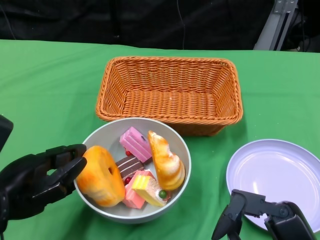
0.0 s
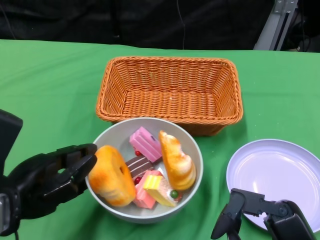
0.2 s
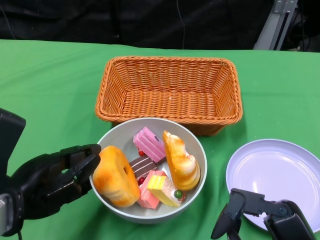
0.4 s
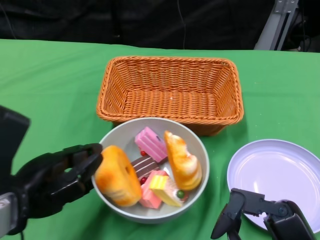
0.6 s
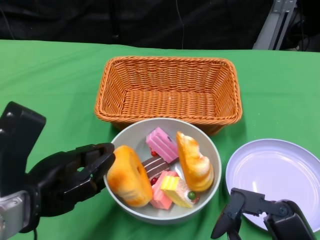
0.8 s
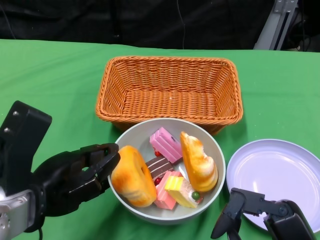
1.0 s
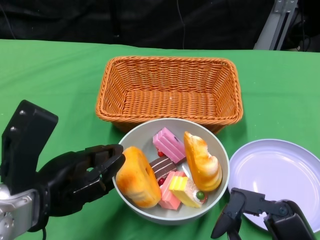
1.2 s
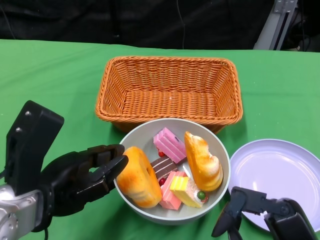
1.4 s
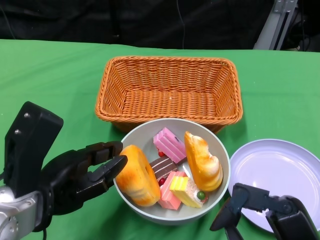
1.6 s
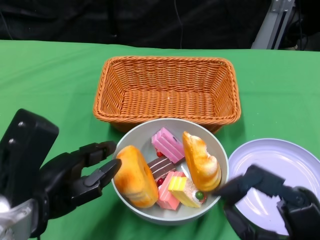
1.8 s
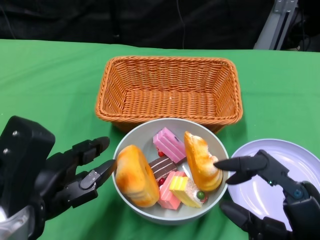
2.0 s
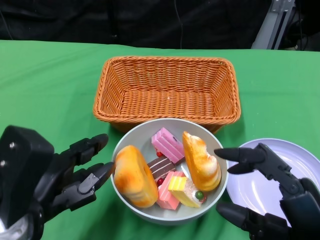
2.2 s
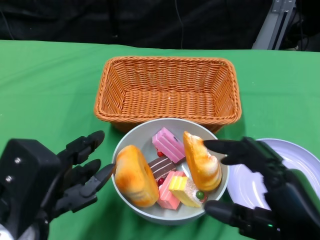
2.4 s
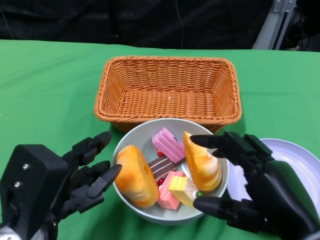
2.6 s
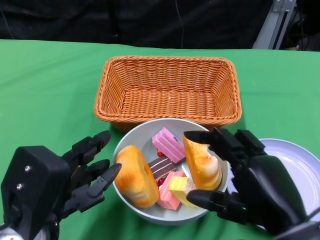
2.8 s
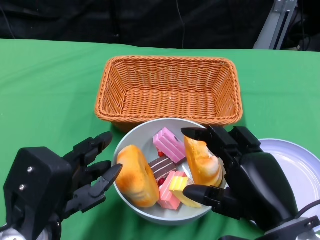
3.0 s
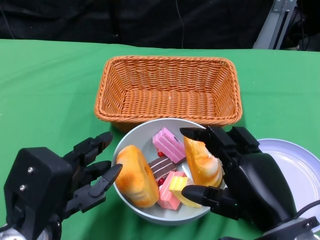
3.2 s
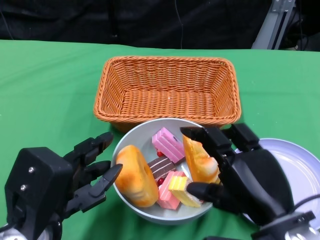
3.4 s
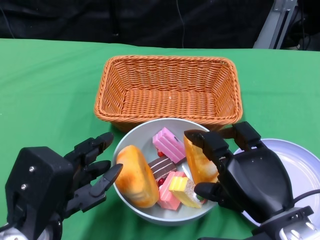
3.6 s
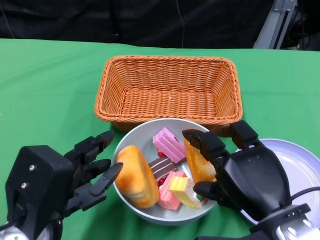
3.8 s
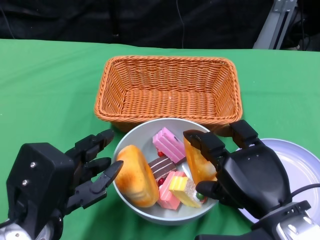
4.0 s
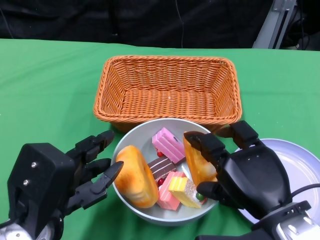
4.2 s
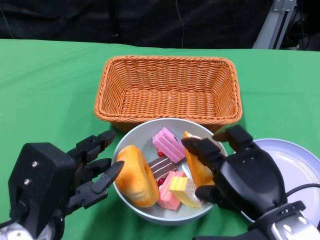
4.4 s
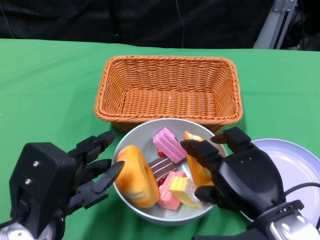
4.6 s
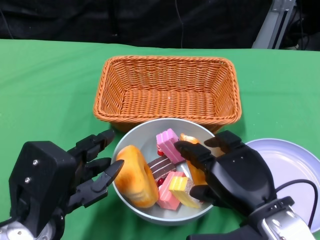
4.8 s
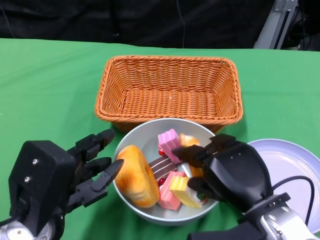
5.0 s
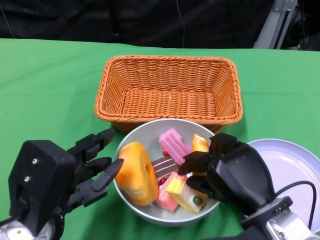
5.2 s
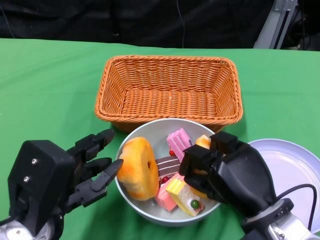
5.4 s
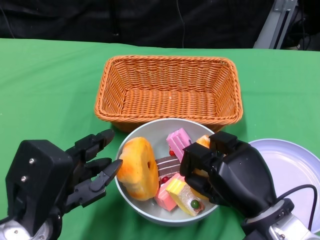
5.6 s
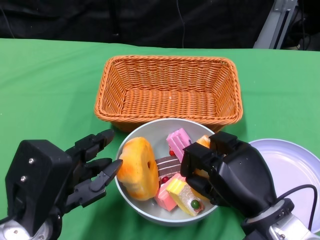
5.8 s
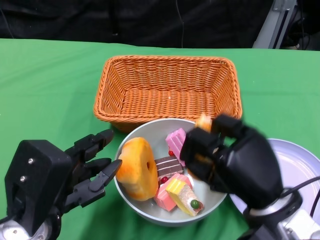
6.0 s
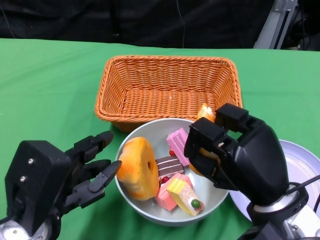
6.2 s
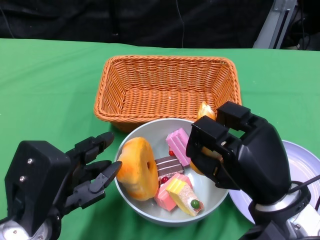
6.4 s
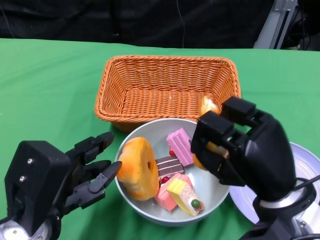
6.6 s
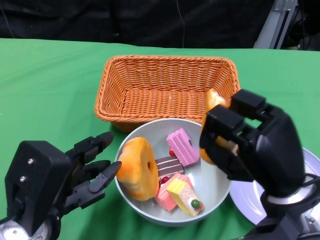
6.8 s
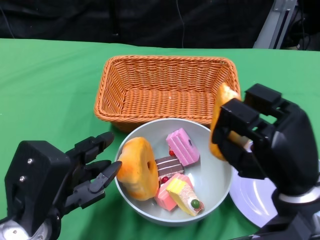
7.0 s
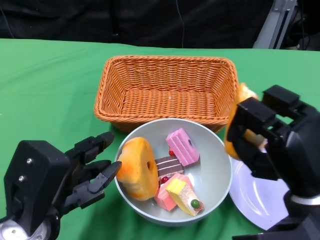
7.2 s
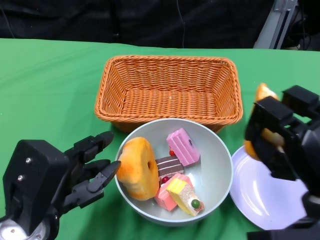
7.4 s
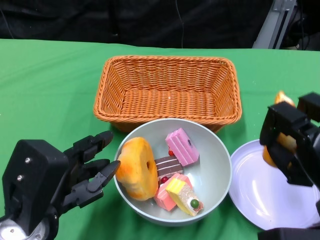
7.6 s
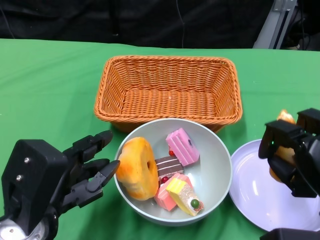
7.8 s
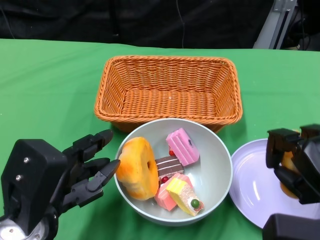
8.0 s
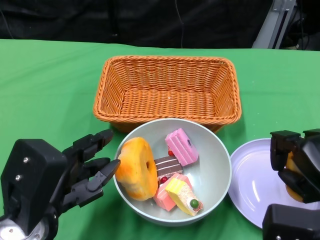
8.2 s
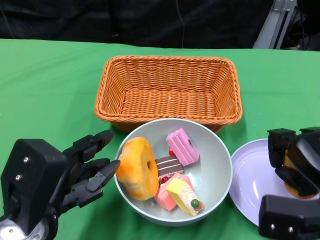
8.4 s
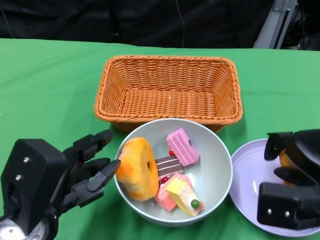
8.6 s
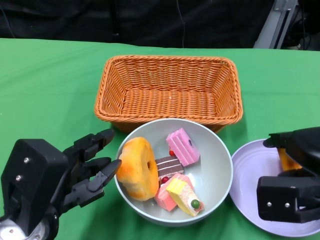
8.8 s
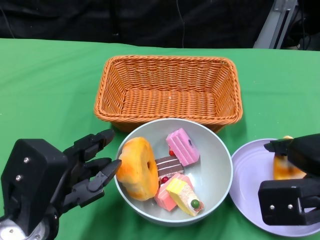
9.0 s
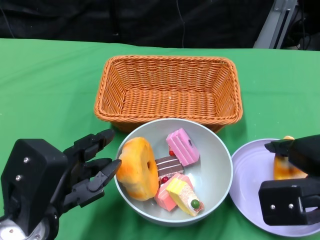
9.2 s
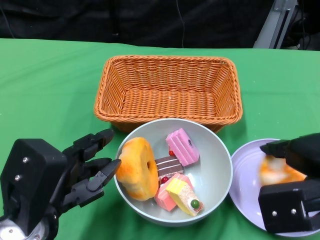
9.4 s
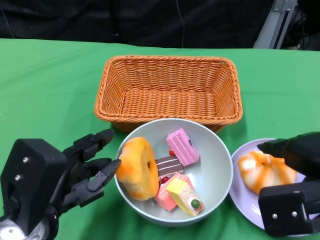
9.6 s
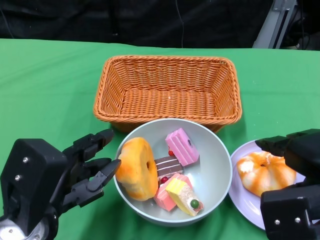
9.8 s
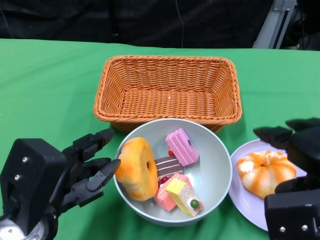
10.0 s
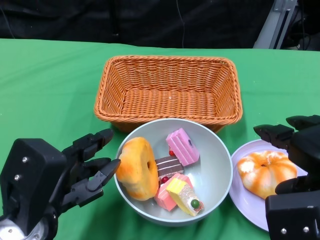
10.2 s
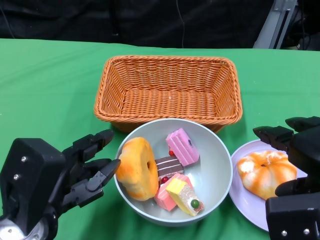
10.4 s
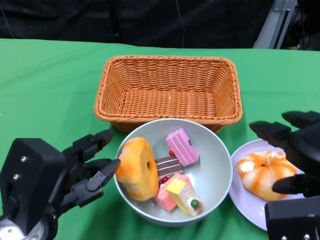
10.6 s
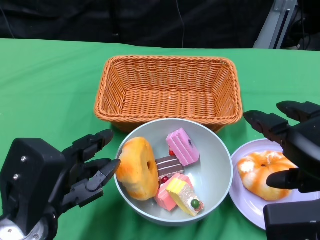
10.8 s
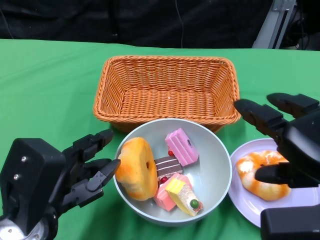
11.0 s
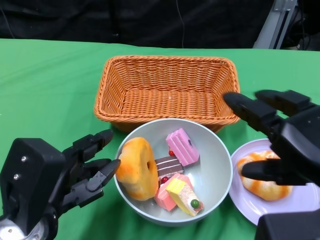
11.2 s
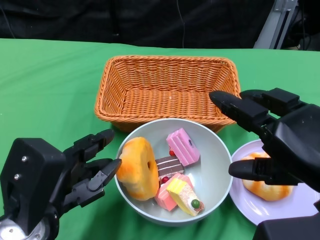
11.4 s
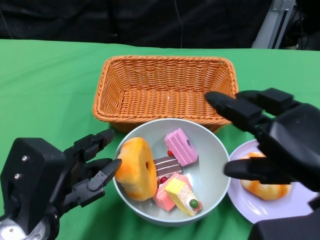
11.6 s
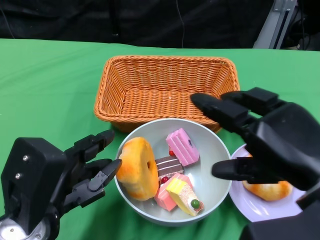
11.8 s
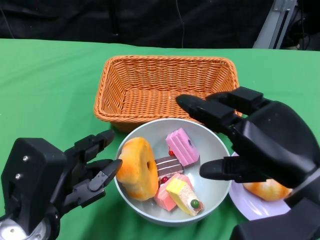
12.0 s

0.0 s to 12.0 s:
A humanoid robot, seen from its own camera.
Step, 0.0 to 2.4 s: Push the bowl to the center of the table using the left gripper.
Step, 2.6 to 11.0 s: Pick up the bread with the right gripper and place it on the plate.
0.0 to 1.6 s: The left hand shifts some 5 cm to the right.
1.6 to 3.0 s: The right hand shifts by roughly 5 cm.
6.0 to 7.6 s: The right hand moves to the right, some 10 cm.
9.0 to 10.4 s: The right hand ends up approximately 5 cm from where it was.
10.4 to 12.0 s: The right hand shifts about 5 cm to the left.

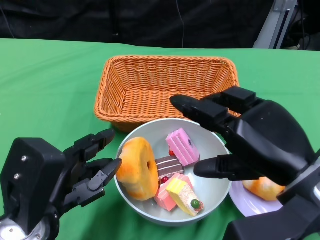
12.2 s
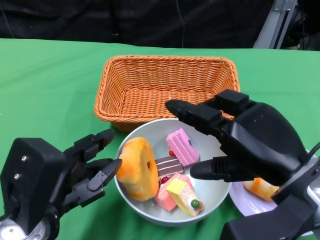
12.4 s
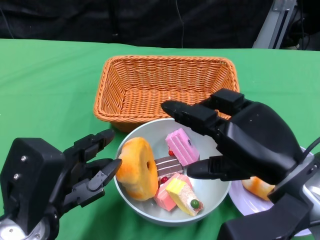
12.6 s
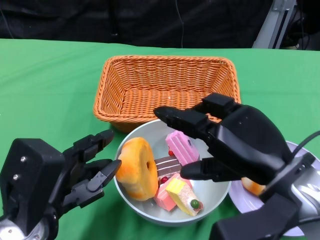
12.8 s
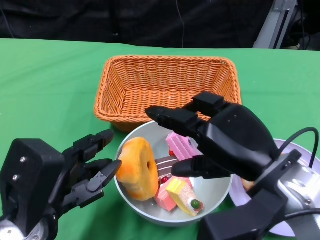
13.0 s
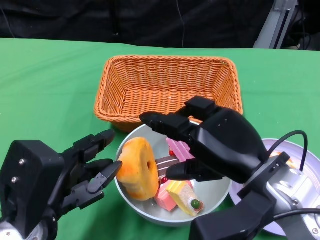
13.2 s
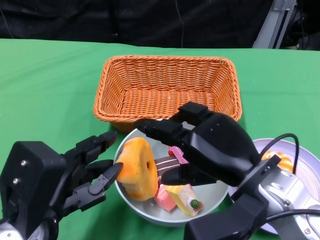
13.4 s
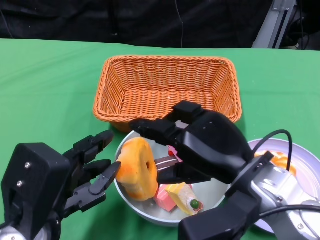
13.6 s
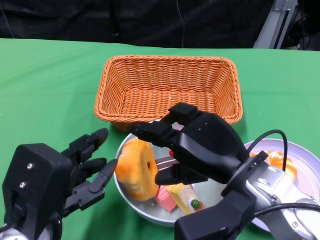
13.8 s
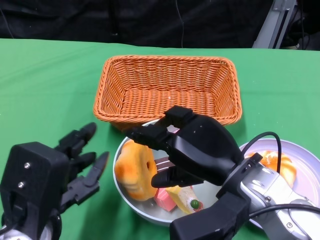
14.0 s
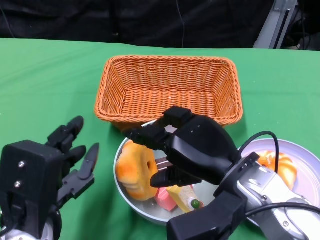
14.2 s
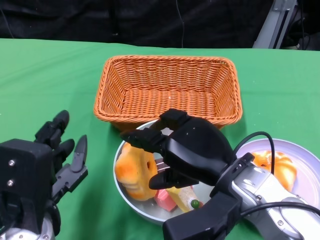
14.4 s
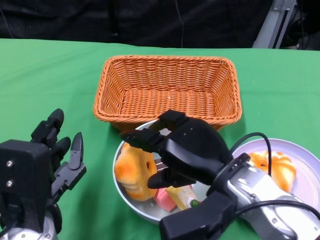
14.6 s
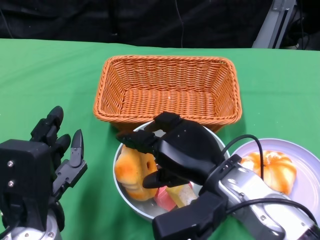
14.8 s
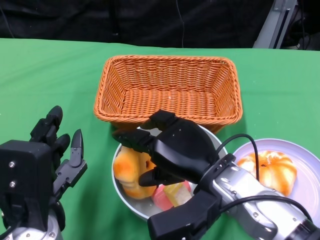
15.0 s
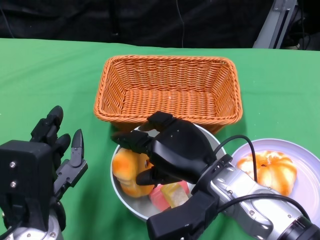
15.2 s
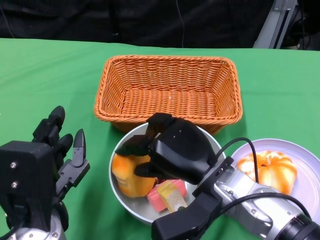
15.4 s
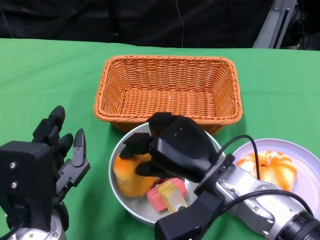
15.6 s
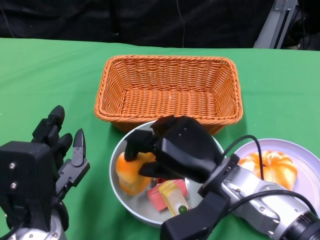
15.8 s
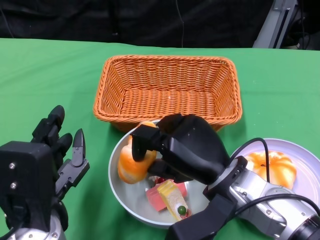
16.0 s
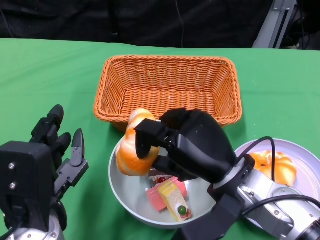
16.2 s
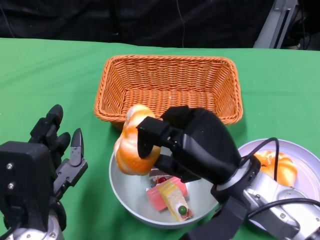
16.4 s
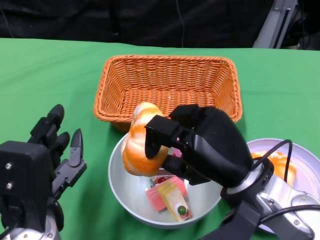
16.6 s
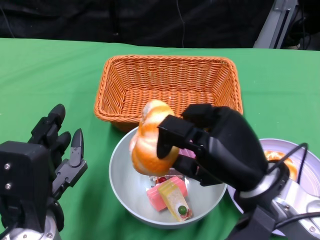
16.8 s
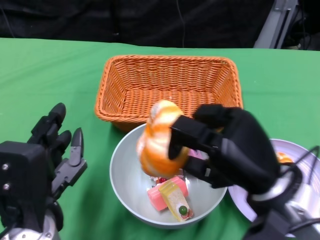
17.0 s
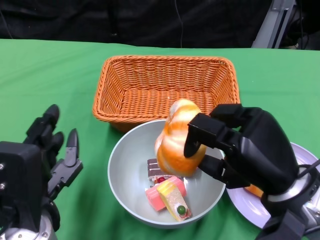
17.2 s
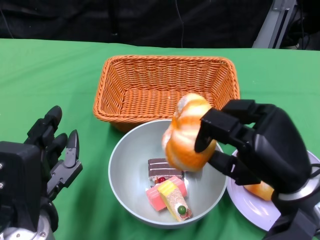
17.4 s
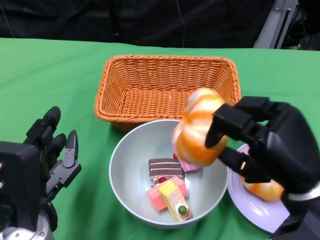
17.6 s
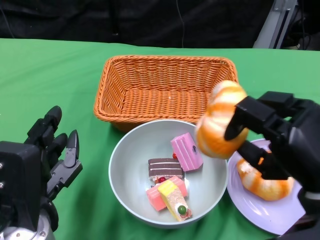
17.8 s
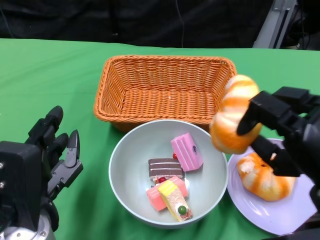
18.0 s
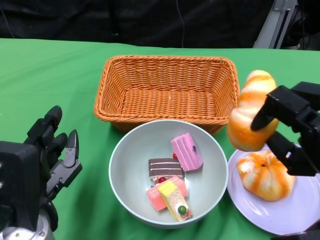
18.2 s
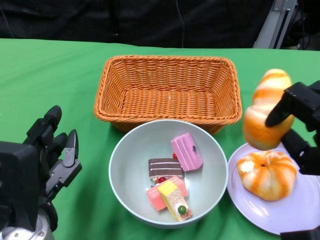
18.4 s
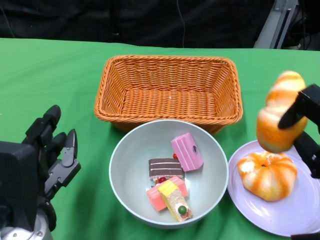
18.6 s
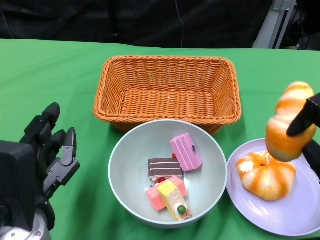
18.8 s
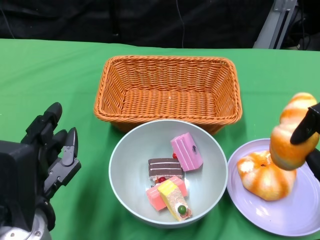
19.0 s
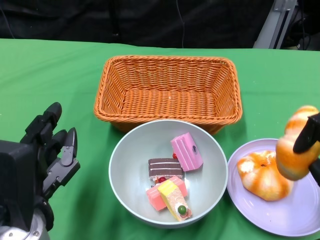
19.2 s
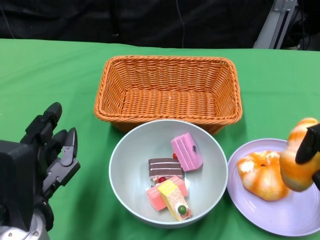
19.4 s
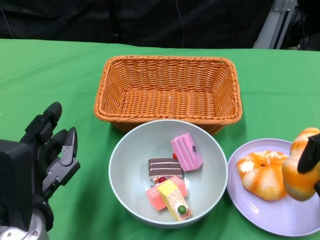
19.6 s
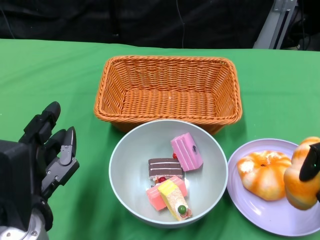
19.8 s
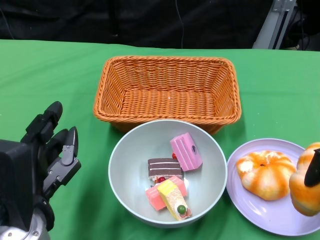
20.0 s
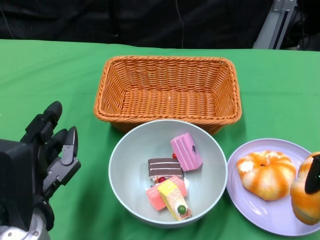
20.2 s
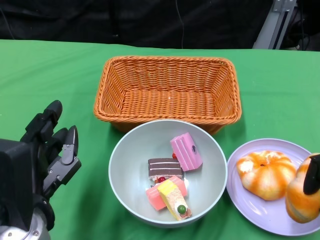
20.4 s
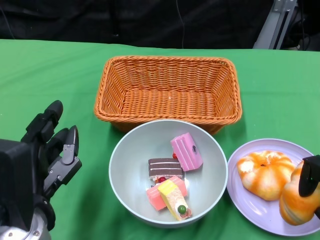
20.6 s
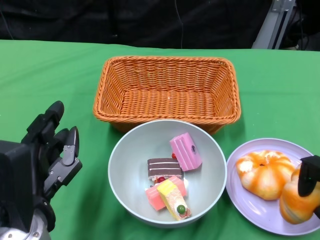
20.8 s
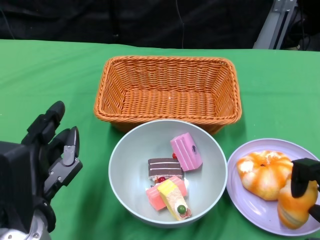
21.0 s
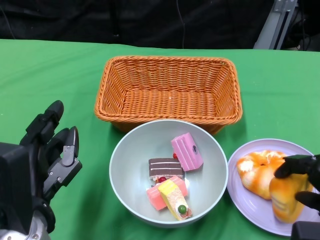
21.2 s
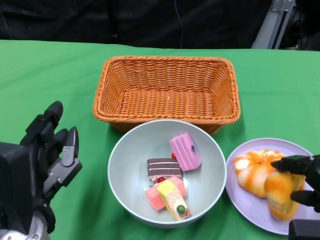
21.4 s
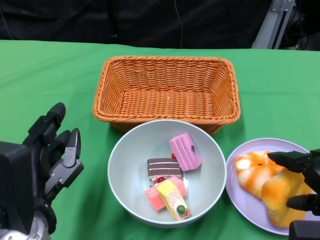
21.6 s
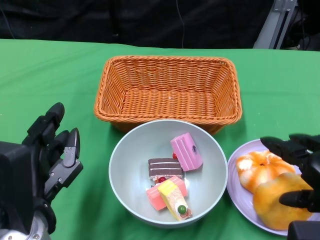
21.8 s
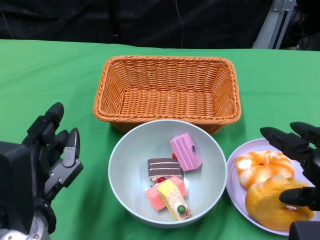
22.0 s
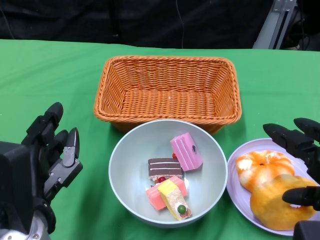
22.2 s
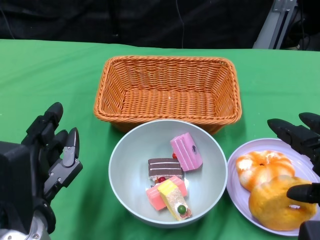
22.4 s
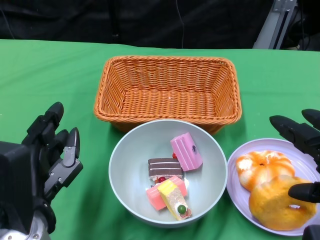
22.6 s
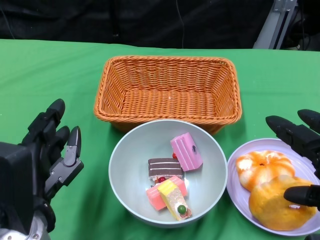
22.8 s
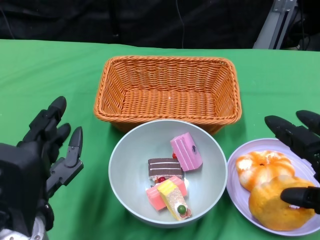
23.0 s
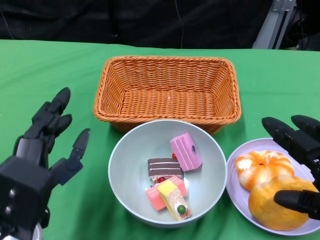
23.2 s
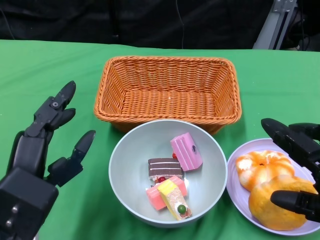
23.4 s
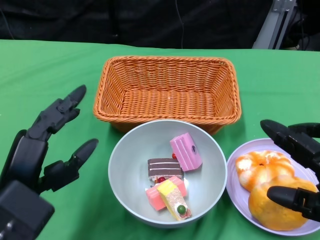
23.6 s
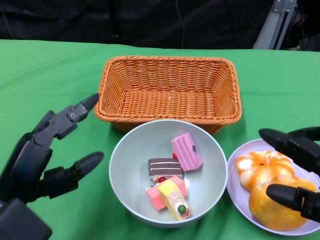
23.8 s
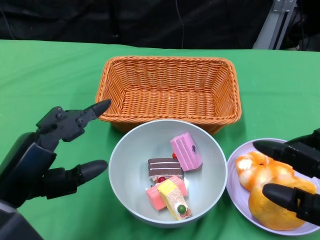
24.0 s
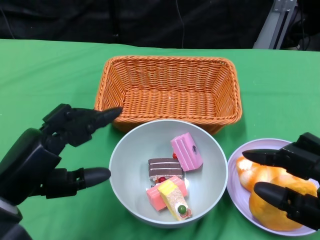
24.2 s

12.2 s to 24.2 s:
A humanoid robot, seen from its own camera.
Step, 12.2 to 23.2 s: Pick up the bread with the right gripper and place it on the plate.
12.2 to 13.8 s: The right hand goes about 5 cm to the left.
13.8 to 15.2 s: The right hand ends up roughly 5 cm from where it was.
16.6 to 18.2 s: The right hand goes approximately 10 cm to the right.
18.2 to 19.8 s: The right hand travels to the right and backward by approximately 5 cm.
21.2 to 22.6 s: The right hand shifts some 5 cm upward.
22.6 to 24.2 s: The right hand shifts by roughly 5 cm.
